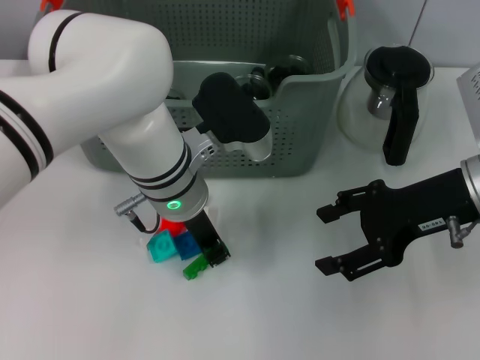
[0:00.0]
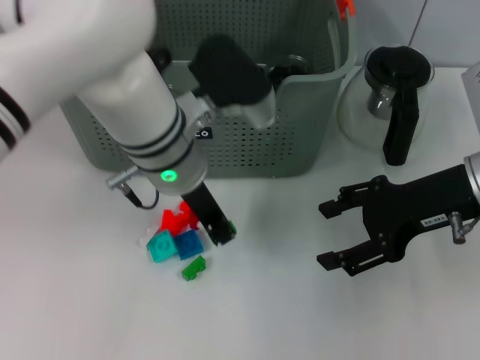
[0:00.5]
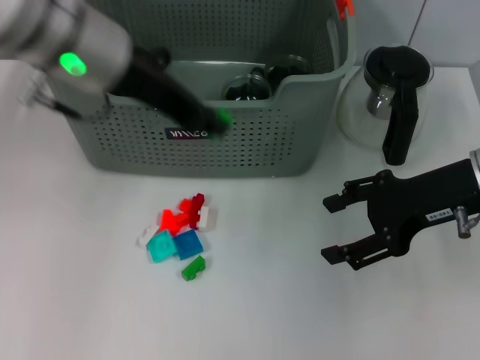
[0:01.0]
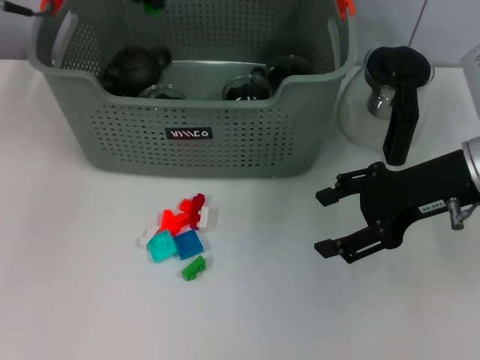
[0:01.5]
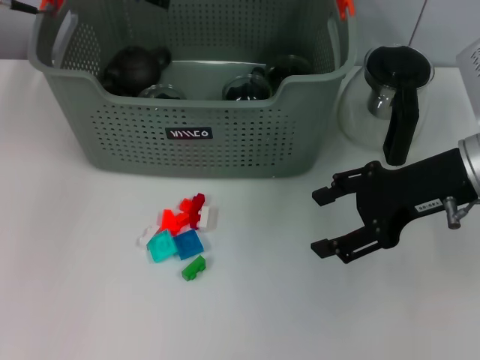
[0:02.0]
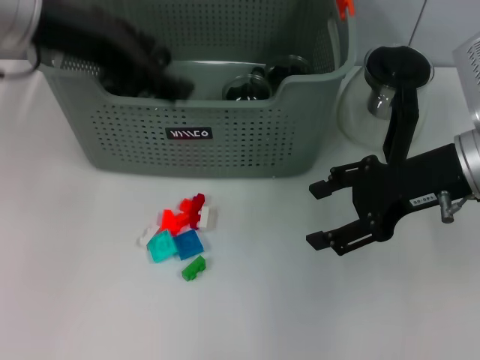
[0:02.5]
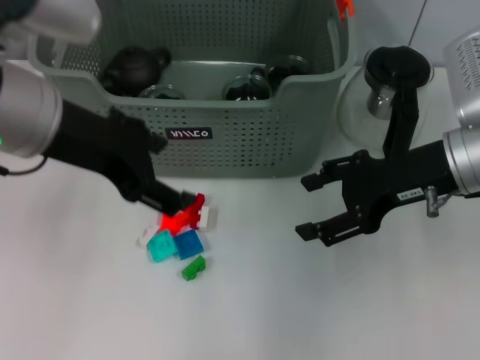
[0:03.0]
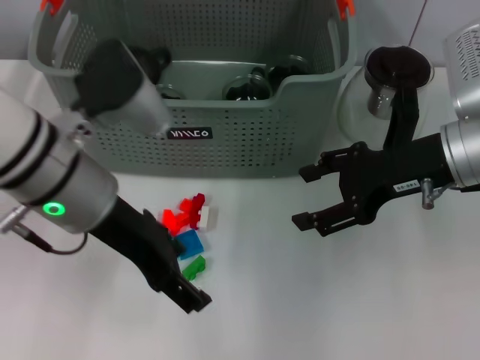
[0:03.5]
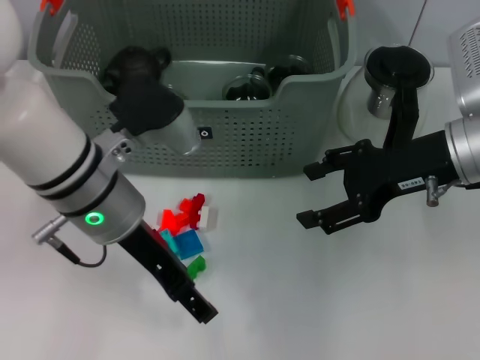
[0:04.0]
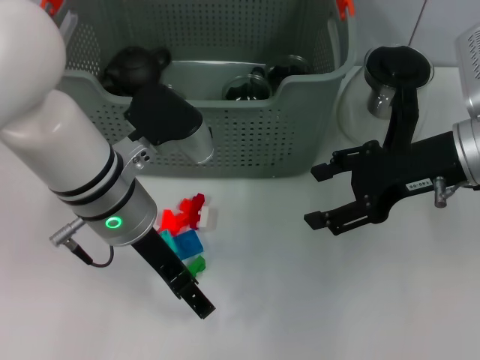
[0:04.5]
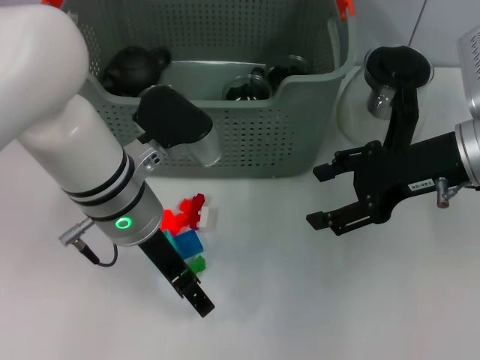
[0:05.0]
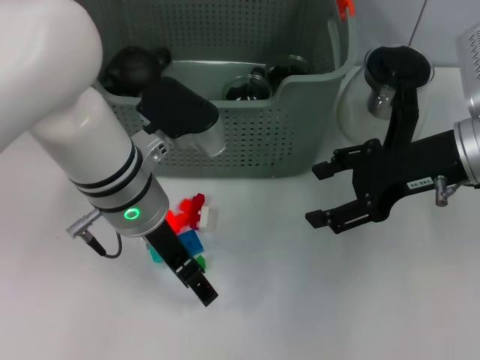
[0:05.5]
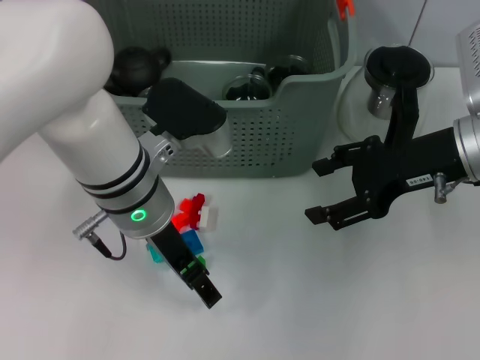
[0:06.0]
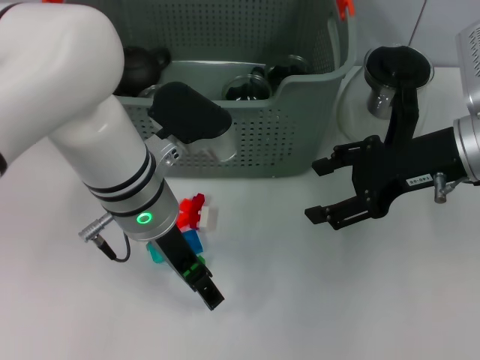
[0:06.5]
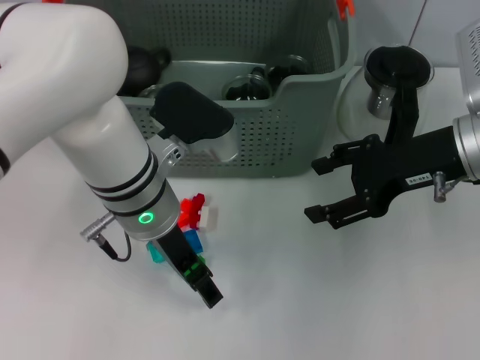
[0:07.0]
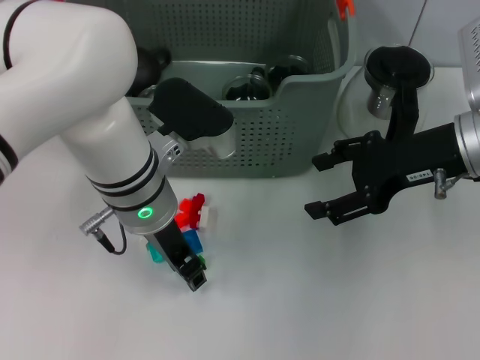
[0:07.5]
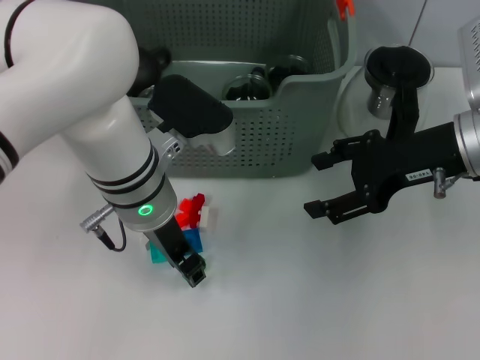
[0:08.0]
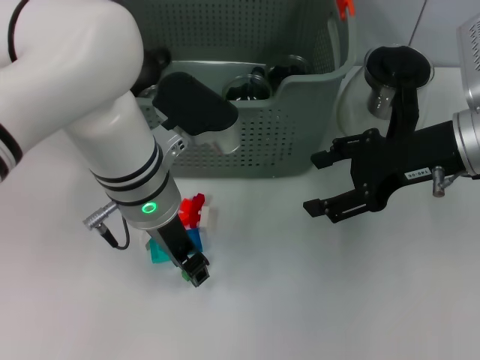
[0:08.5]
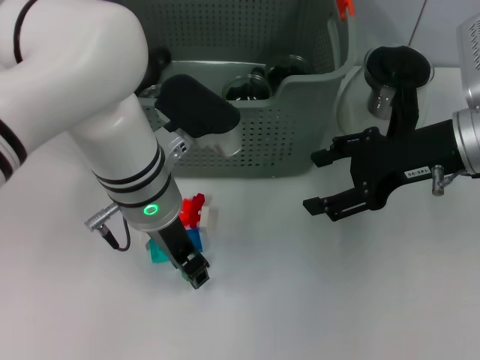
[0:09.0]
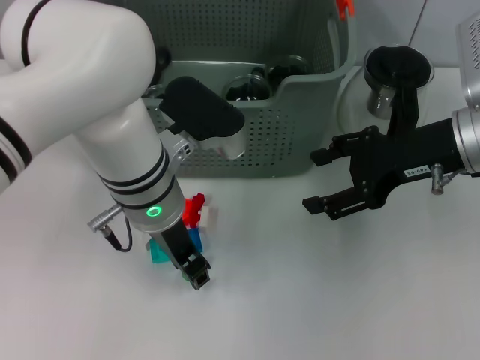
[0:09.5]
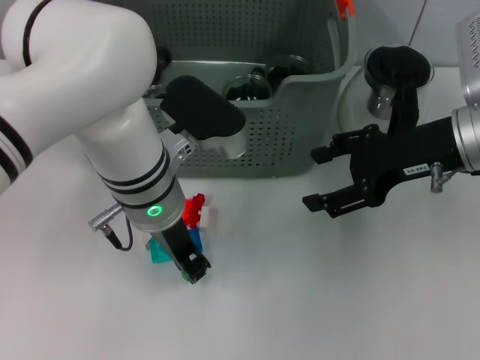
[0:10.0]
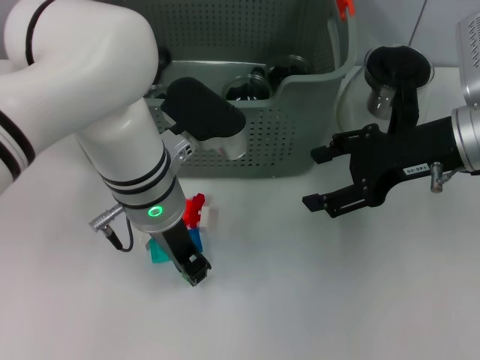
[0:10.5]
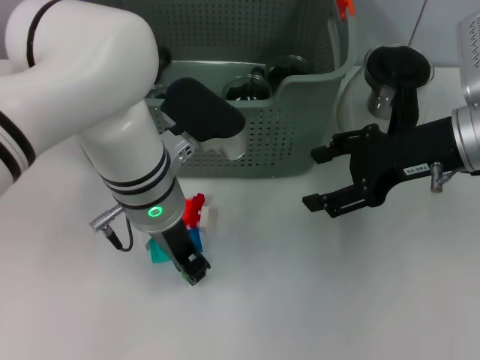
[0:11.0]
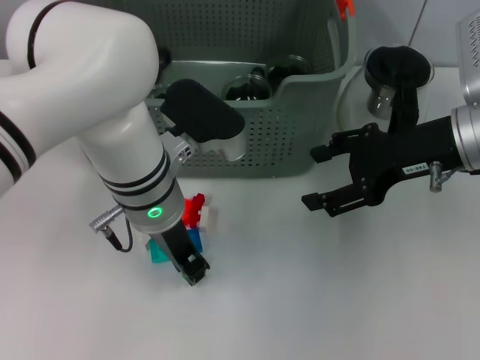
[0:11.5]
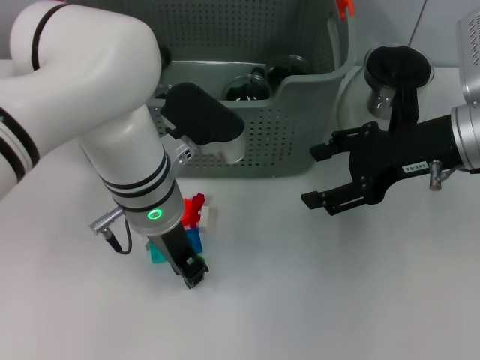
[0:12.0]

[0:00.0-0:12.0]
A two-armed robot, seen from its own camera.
Task of the whole recording: pick up the teacup on the table and place it into the storage bin, pick up the block on the table and place it into the storage bin.
Step, 0:00.5 to 0:01.5: Place the green block in the storage box with left gripper.
0:00.0 to 0:02.0: The left gripper moves upward, to the left and forward, about 25 cm.
0:02.0 to 0:04.0: The left gripper travels backward, downward and to the right by roughly 20 cm, and opens.
0:06.0 to 0:08.0: The left gripper closes.
0:08.0 to 0:12.0: Neither gripper changes place.

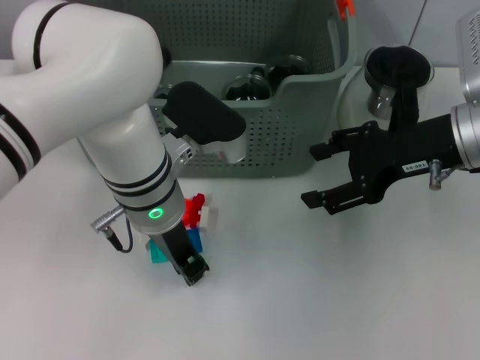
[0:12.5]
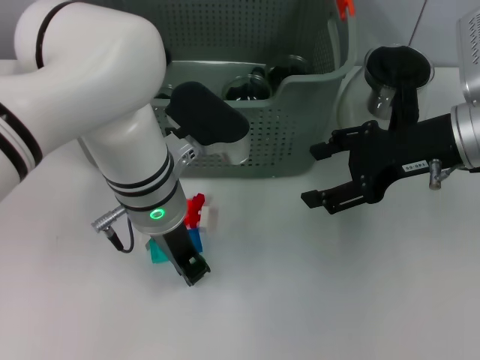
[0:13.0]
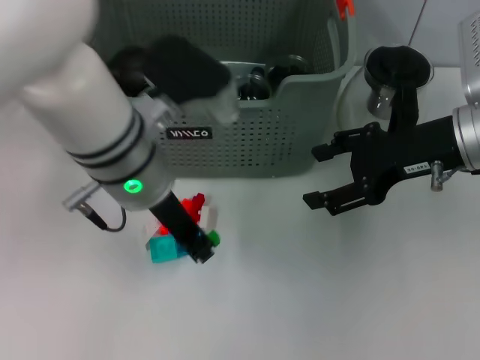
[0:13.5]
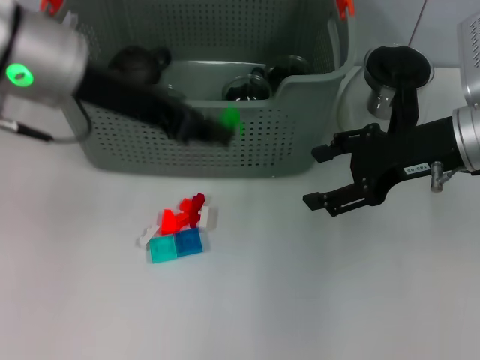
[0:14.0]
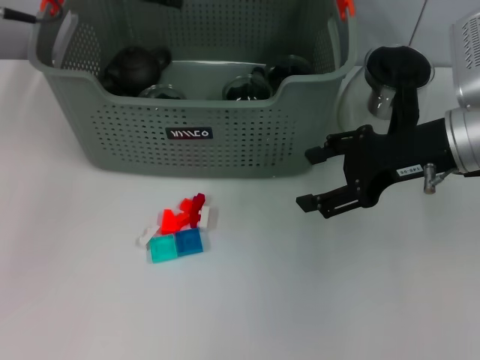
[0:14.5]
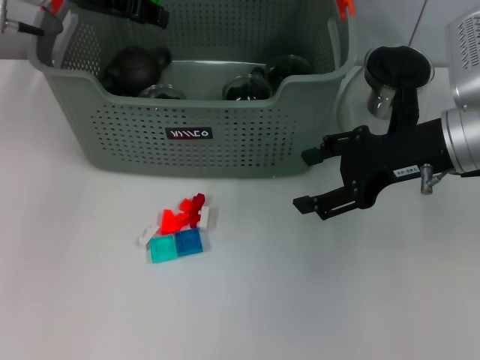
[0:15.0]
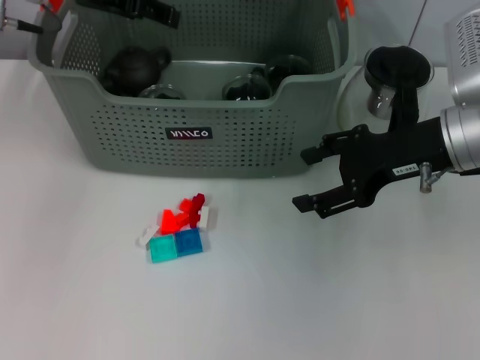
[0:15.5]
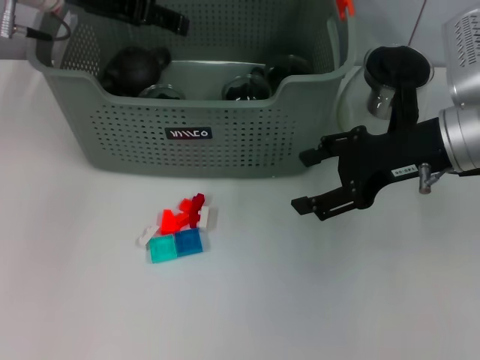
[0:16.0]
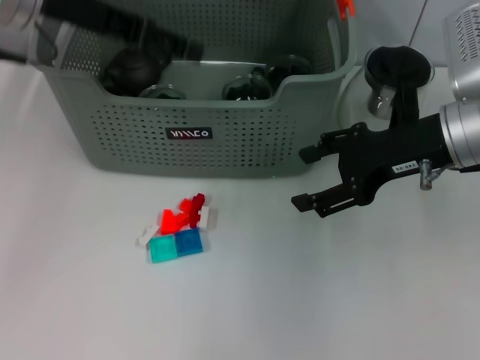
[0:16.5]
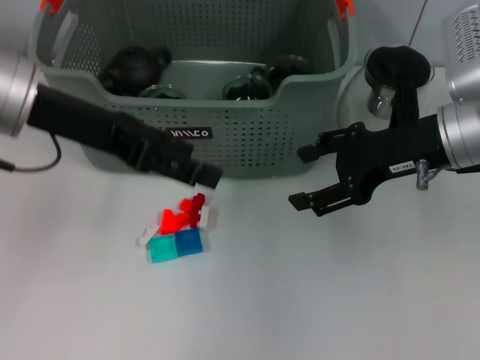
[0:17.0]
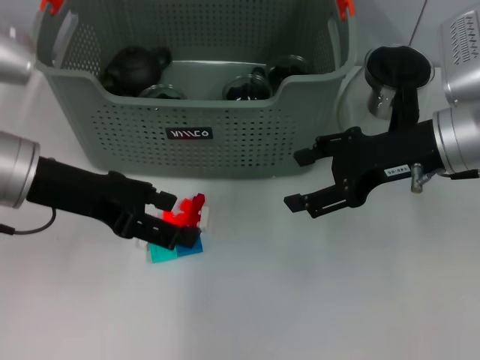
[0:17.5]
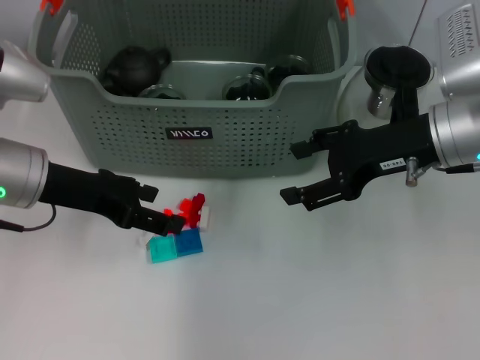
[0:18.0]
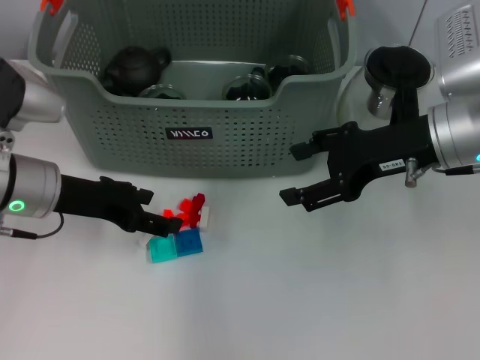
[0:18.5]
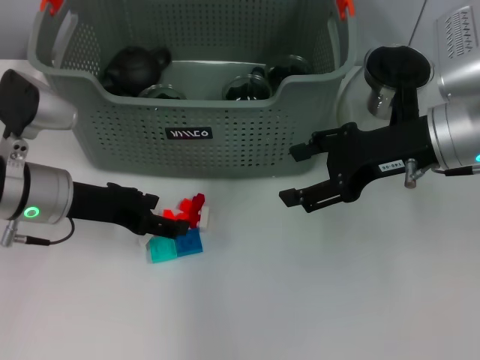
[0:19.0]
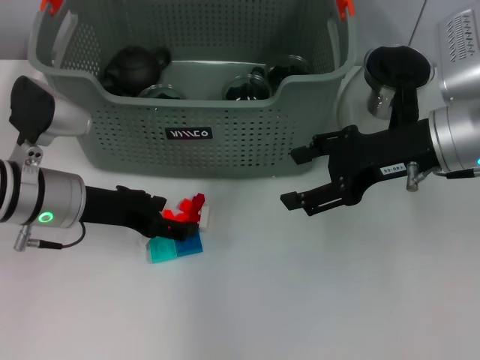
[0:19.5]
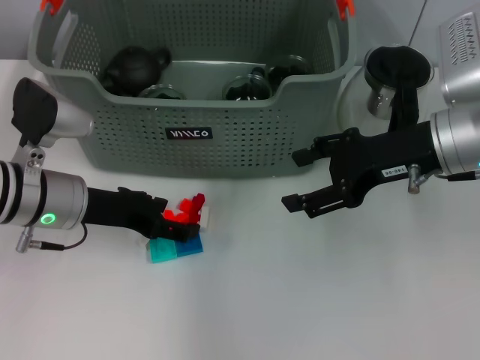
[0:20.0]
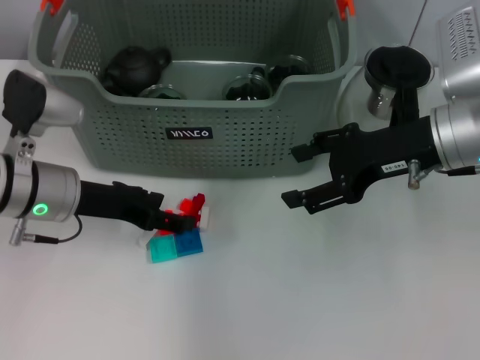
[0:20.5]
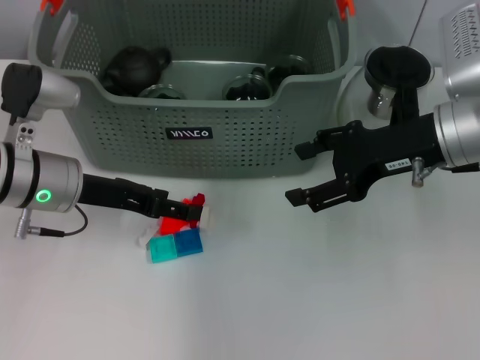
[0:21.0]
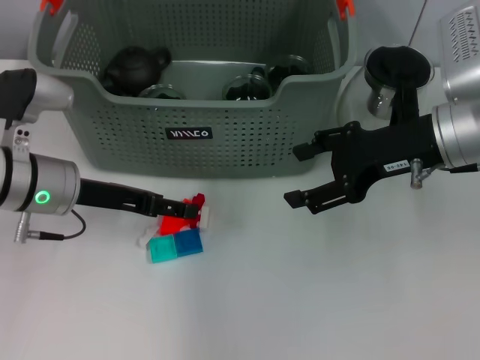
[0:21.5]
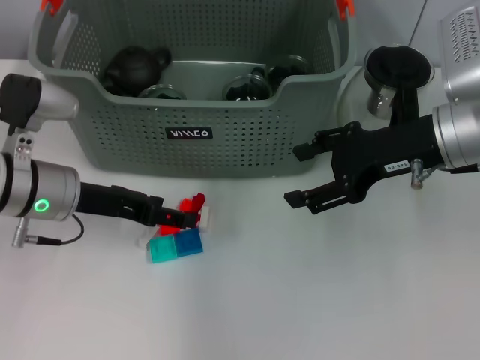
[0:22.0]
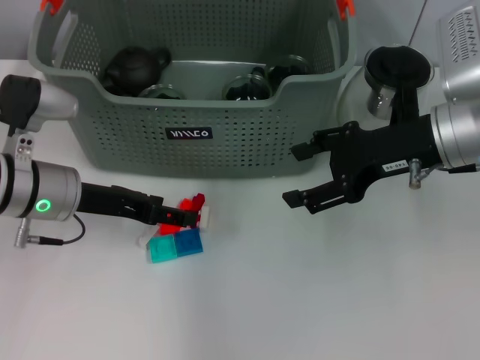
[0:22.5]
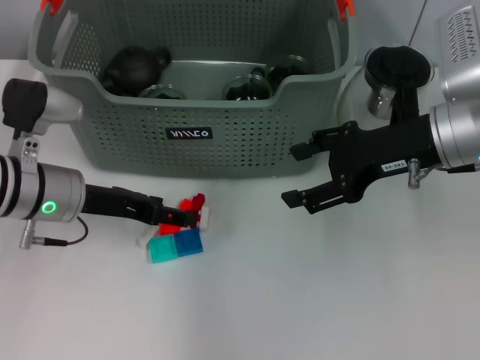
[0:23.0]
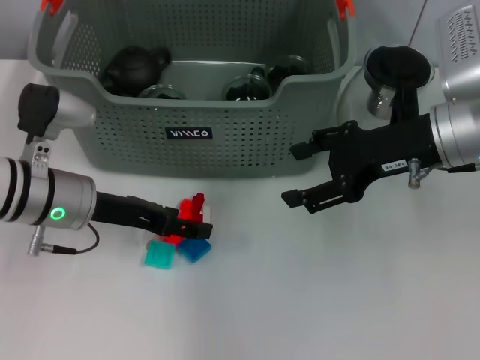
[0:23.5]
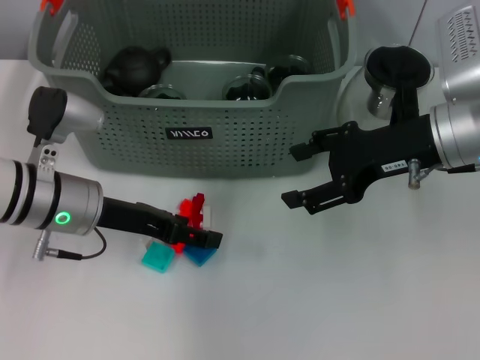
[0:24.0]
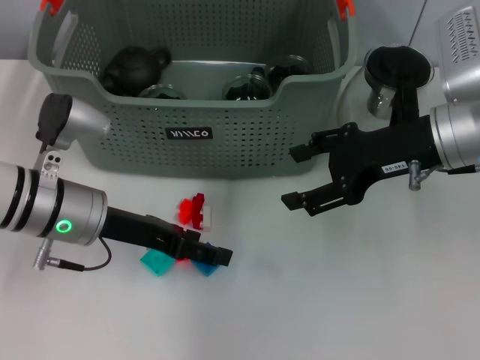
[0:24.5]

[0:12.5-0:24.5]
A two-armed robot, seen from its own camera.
Task of the whole recording: pick up the teacup on the table and place it into the storage bin, pick up the block on the table and place it into the storage bin.
Step, 0:13.0 to 0:15.5: Place the green block in the storage box with left gripper.
0:12.5 to 0:14.5: The left gripper goes about 20 cm upward, to the left and forward.
0:14.5 to 0:16.5: The left gripper opens its fingers.
0:16.5 to 0:18.5: The left gripper shifts about 15 cm downward.
0:18.5 to 0:24.5: The grippers move only a little.

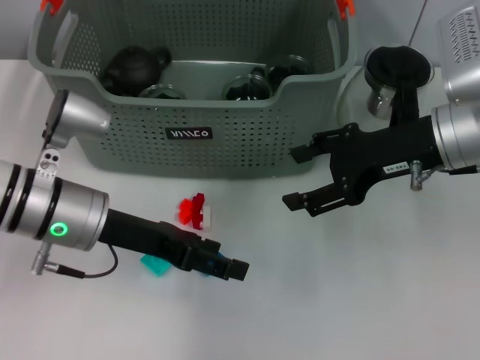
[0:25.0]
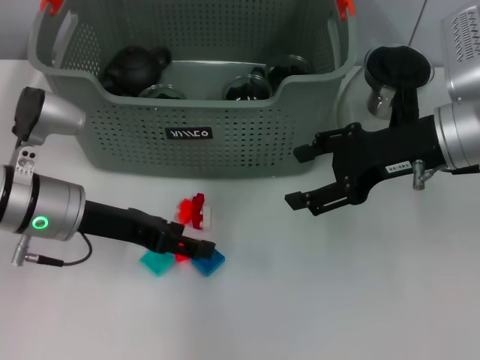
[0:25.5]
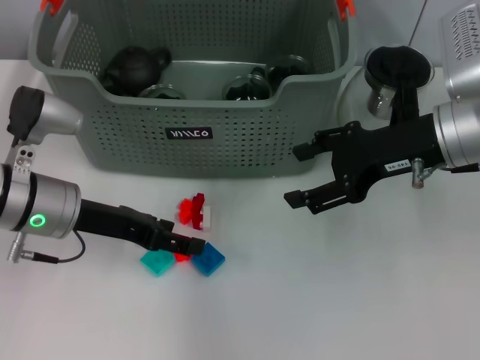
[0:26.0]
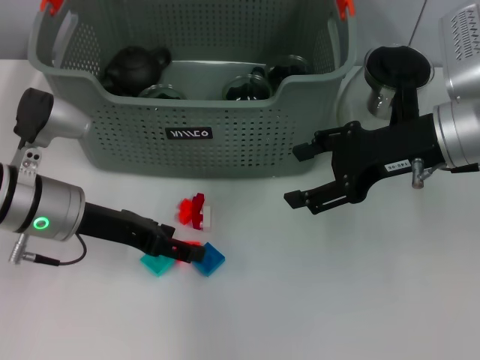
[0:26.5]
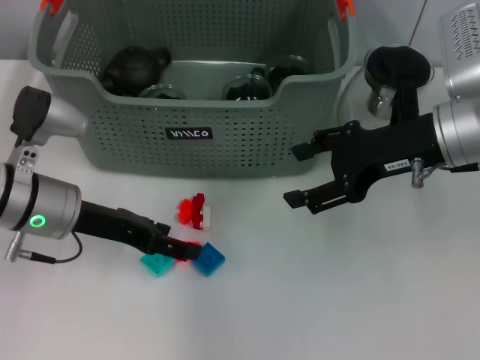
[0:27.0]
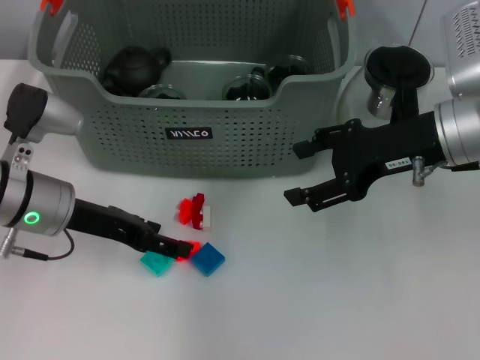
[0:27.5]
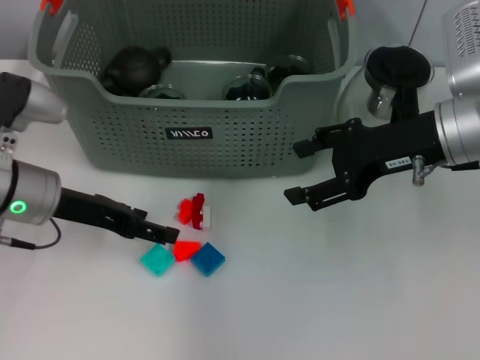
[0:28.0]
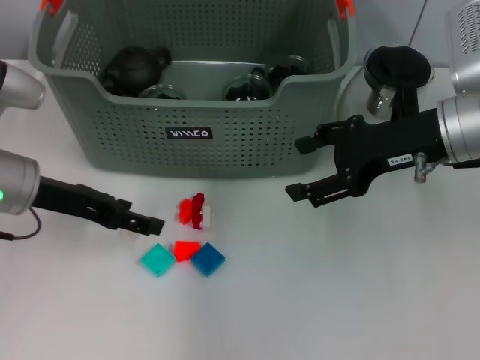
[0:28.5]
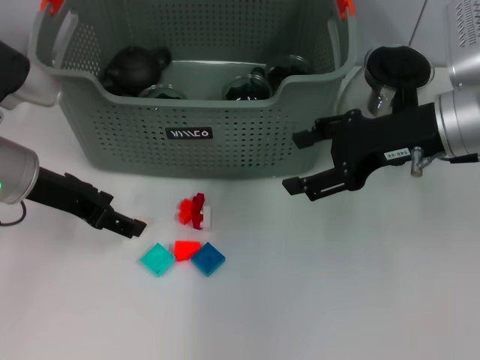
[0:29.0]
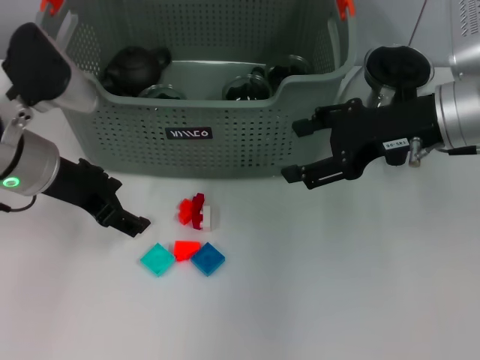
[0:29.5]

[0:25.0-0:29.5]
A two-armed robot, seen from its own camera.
Task of the whole recording: pick up the teacup on the table and place it into the storage bin, pick up the block on the table and place it into the storage bin.
0:25.0 to 0:27.0: The grippers stay close to where they were, moving slightly.
0:27.0 to 0:29.5: The left gripper travels upward by roughly 5 cm.
